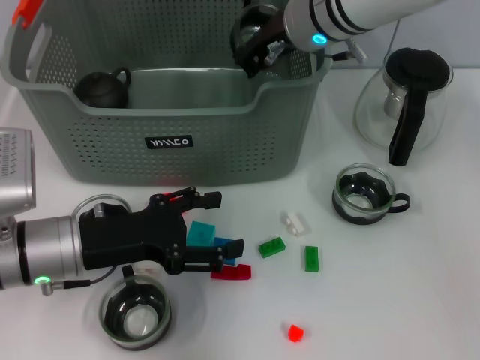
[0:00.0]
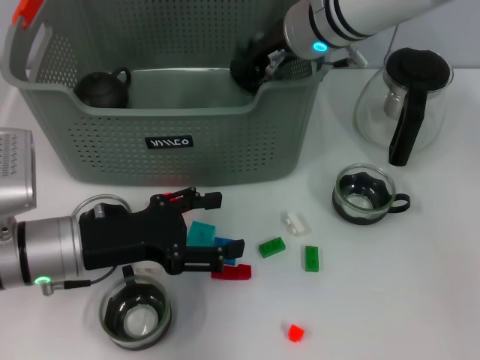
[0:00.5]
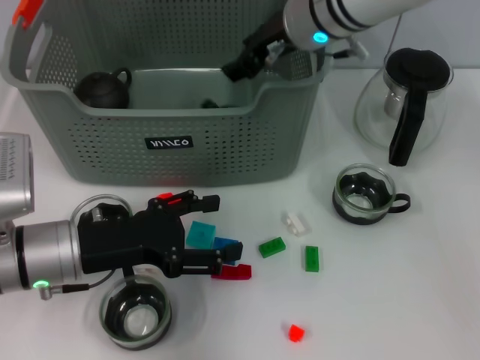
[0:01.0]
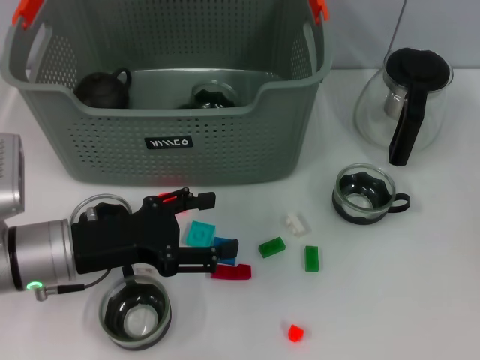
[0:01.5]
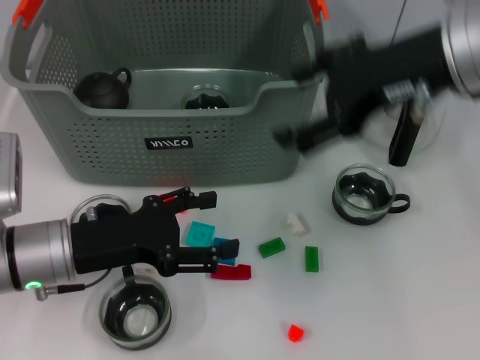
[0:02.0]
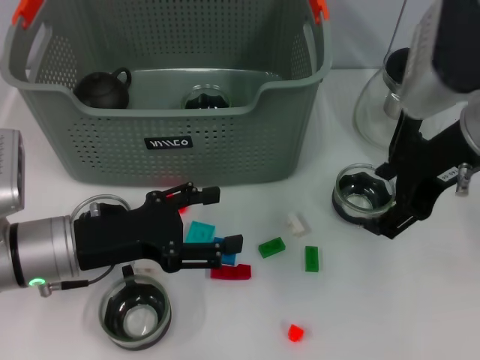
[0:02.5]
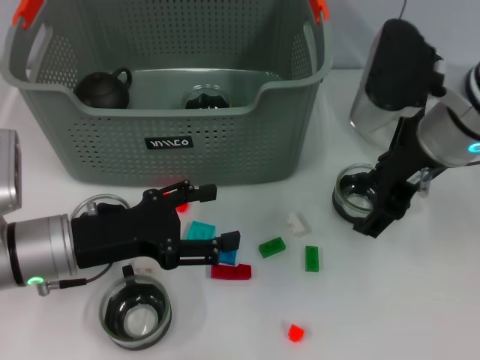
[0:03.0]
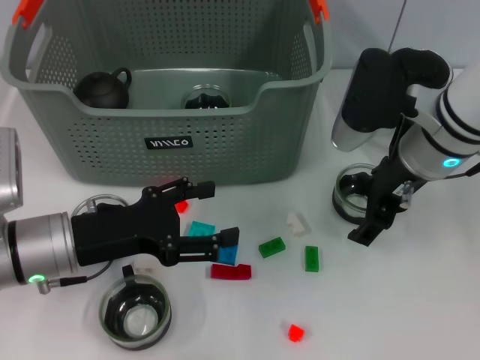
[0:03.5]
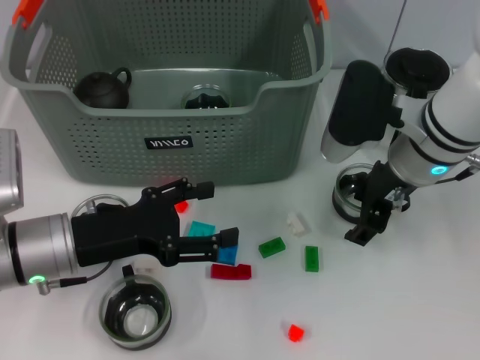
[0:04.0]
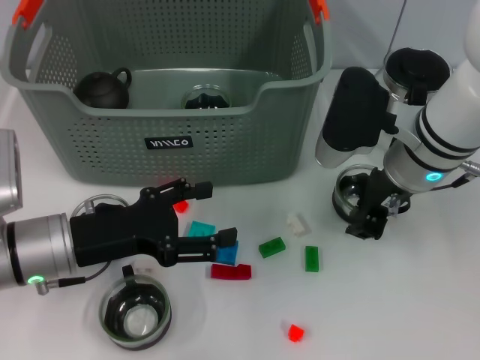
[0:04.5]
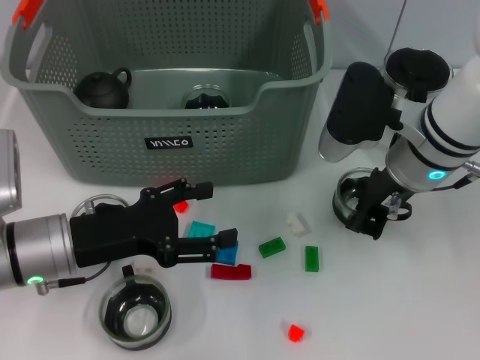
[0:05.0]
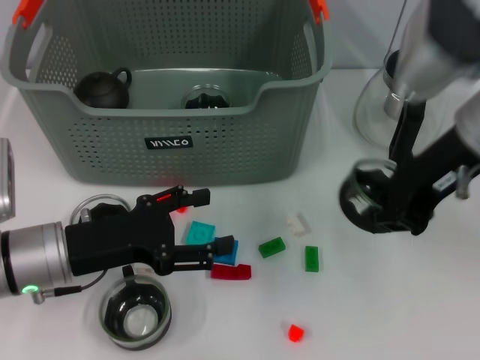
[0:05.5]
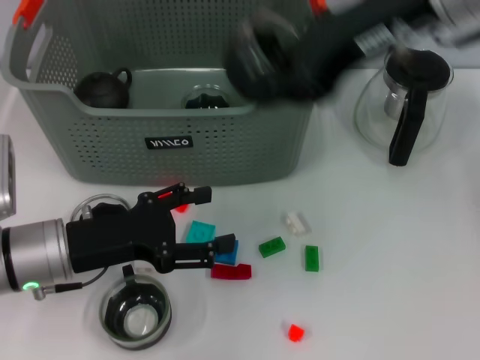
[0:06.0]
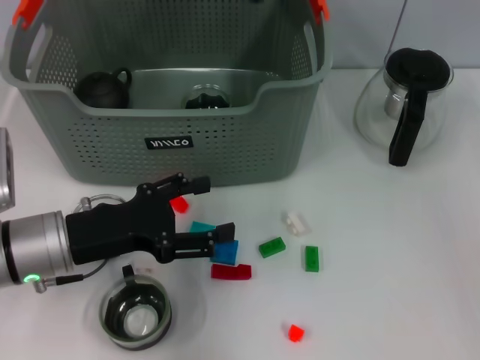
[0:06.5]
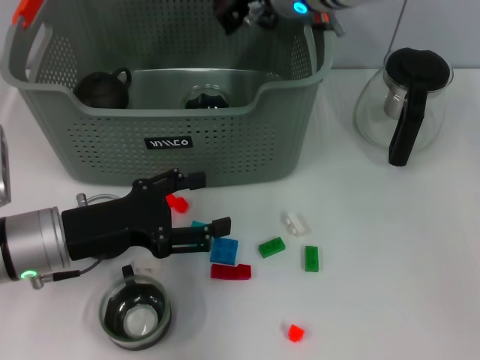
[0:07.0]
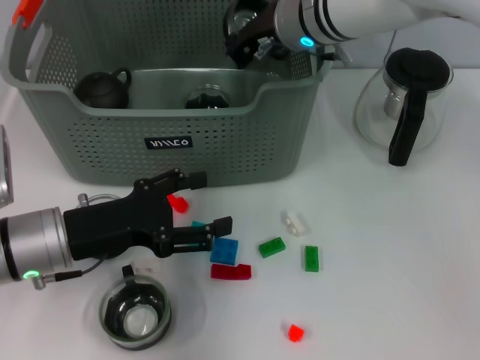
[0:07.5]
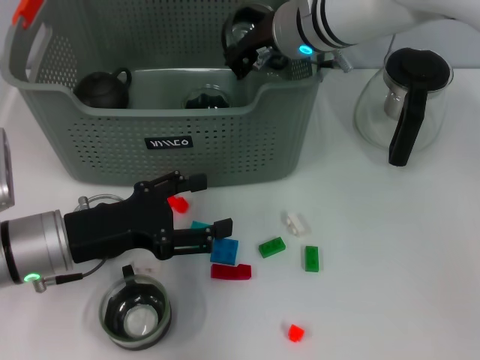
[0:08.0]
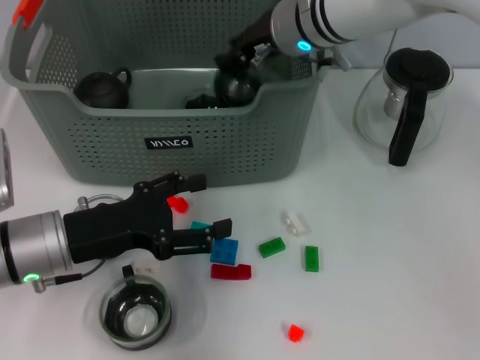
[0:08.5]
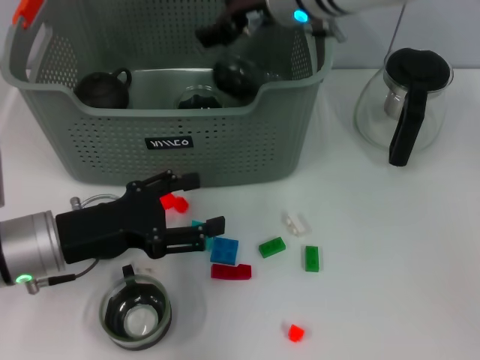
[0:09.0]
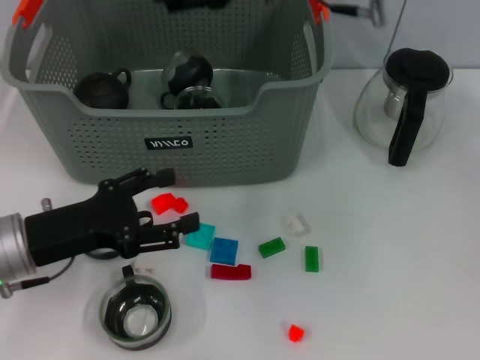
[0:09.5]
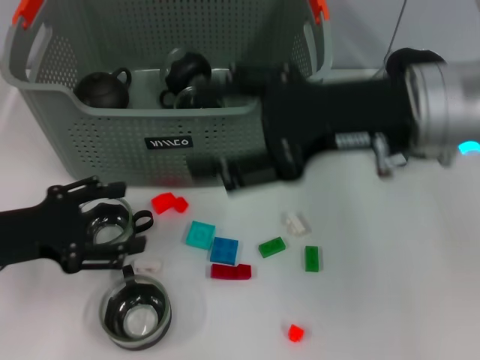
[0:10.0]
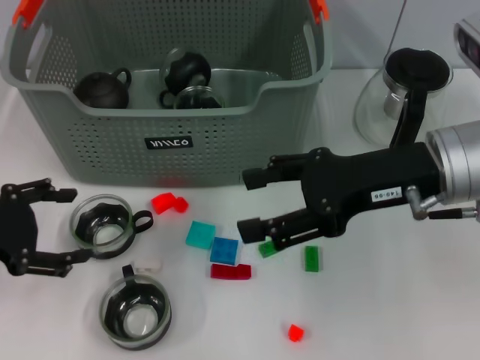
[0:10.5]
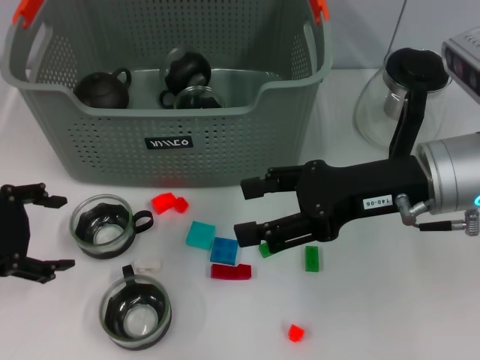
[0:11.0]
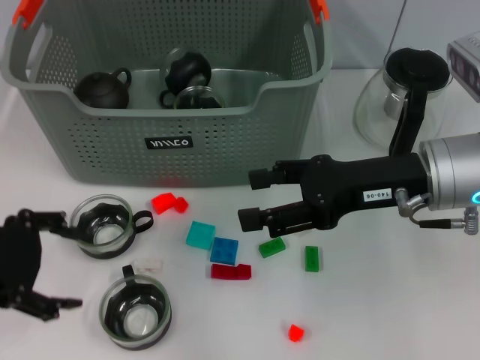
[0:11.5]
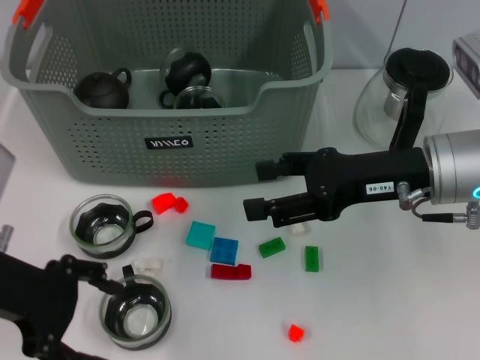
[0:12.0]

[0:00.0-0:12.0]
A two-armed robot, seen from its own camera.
Task of the whole recording: pick up the teacup on the table and place it into the storage bin, pick up the block on the table and place it into the storage bin.
Step, 1.5 to 5.0 s: Grasp the cup with right gripper.
Step, 5.5 to 9.0 s: Place the cup in the storage box with right gripper.
0.0 to 2.0 s: The right gripper heads backward, to the right and upward, covering some 15 cm, and opens.
2.0 to 4.0 s: The right gripper heads downward, covering approximately 15 cm.
4.0 to 6.0 s: The right gripper is displaced upward by some 20 cm, and closes up.
6.0 to 8.0 s: The right gripper shifts roughly 20 cm downward, forward and to the left.
8.0 to 10.0 s: The left gripper moves to the left, approximately 5 cm; the right gripper travels backward and to the right by roughly 15 cm, and opens up.
10.0 to 12.0 s: The right gripper moves downward, about 5 cm. Meanwhile the left gripper goes roughly 5 cm upward.

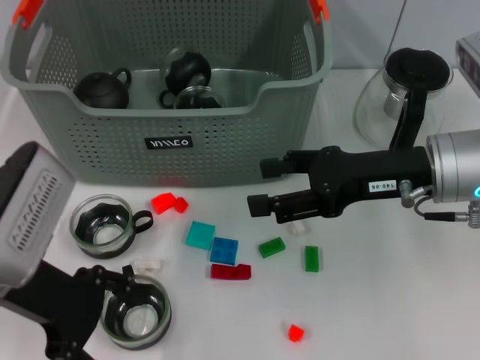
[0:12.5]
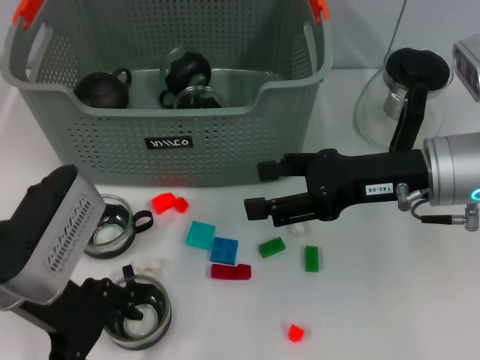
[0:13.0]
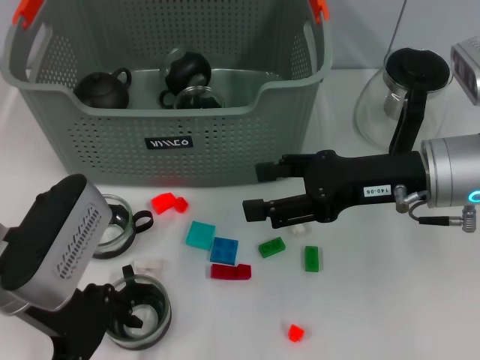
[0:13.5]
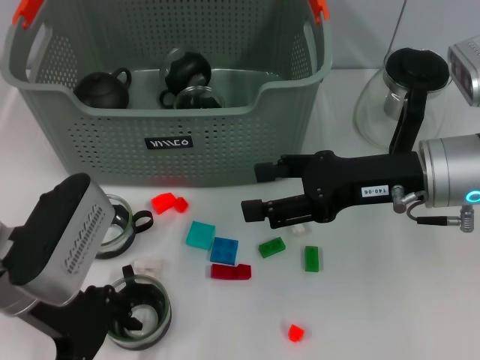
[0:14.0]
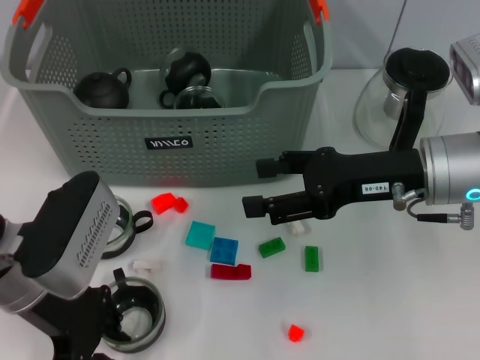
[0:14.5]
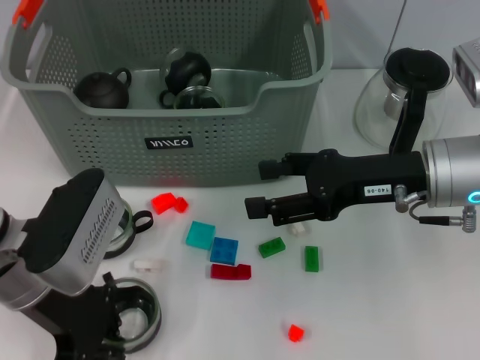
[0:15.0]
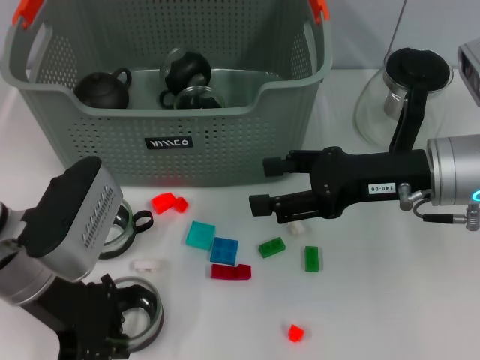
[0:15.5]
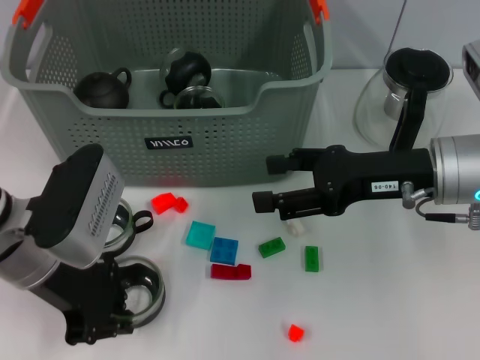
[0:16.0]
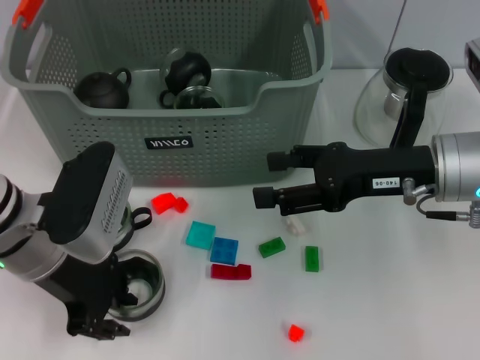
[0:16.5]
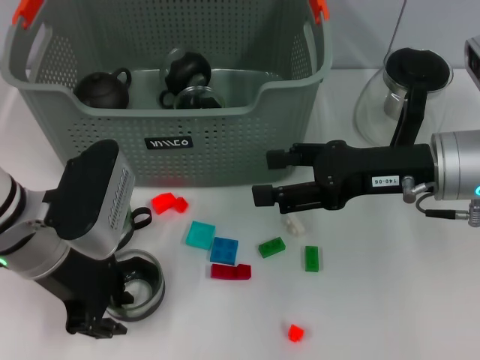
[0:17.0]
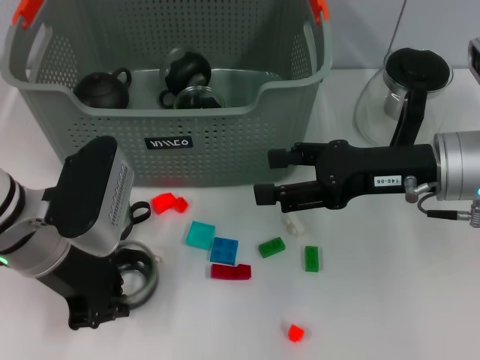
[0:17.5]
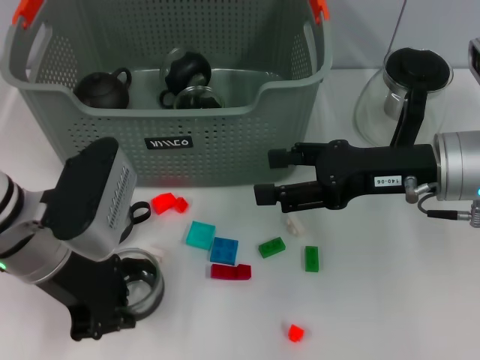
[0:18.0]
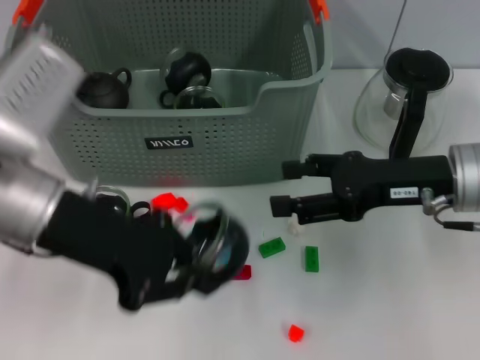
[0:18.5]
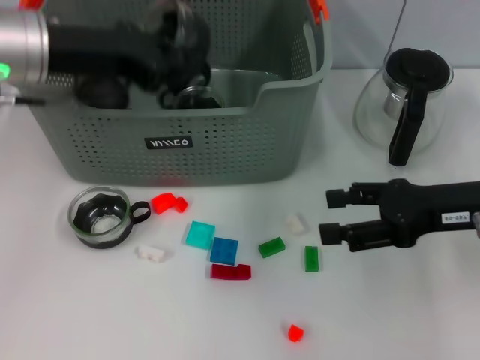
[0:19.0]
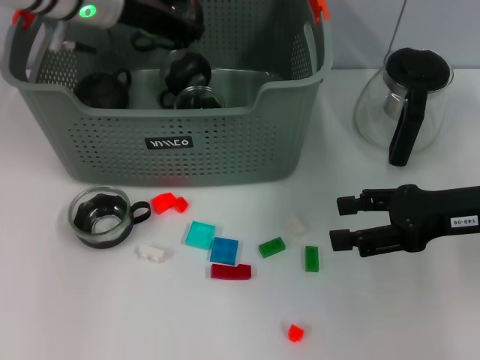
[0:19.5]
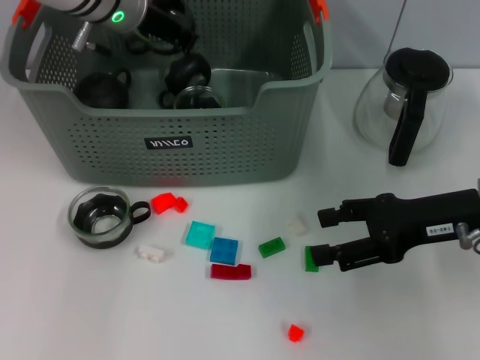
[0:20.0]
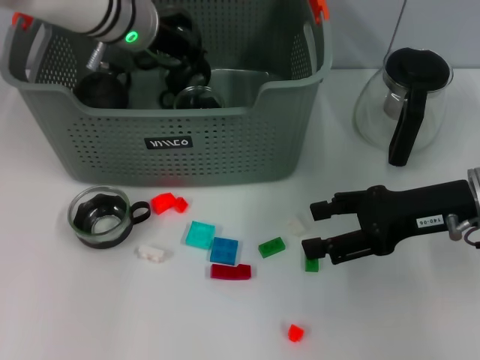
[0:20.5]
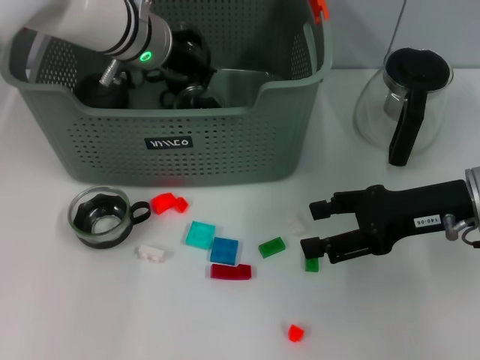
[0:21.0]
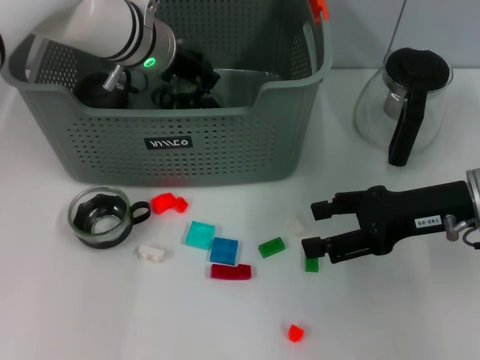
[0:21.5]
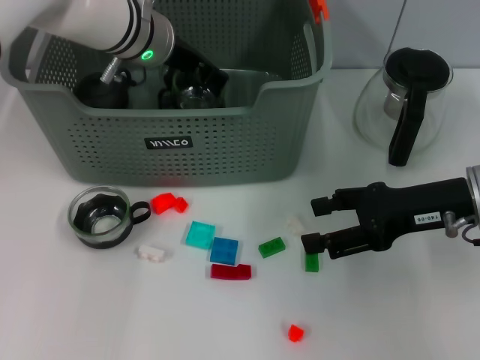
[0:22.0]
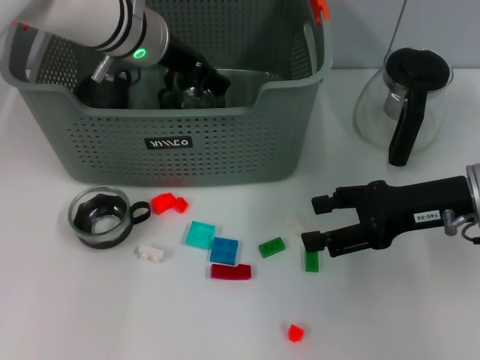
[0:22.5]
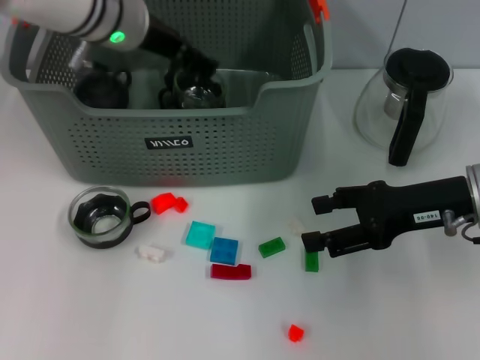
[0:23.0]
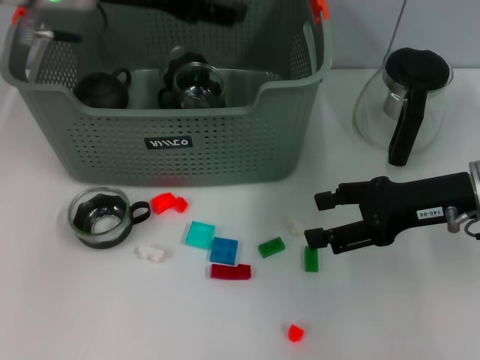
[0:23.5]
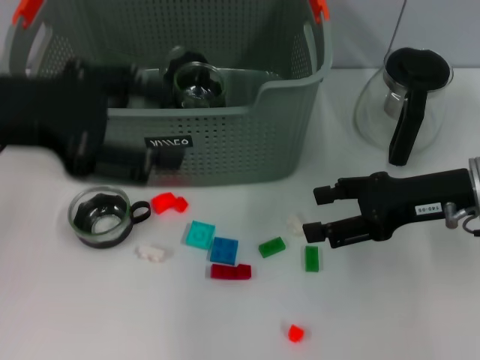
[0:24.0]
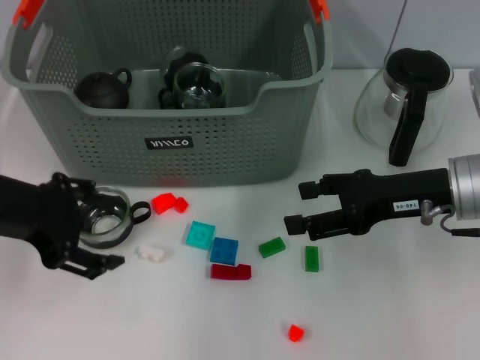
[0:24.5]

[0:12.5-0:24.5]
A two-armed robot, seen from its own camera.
Task of the whole recording: pick up the teacup on the table and place it into the storage bin, pick up the block on the table and place it into the storage bin.
Step, 12.5 to 14.5 s: Grasp the cup with left gripper.
Step, 15.5 to 23.5 s: Place the cup in the storage box with left gripper.
12.5 to 14.5 s: The left gripper closes its fingers.
14.5 to 16.5 s: The grippers make only small movements.
16.5 to 18.5 s: The left gripper is displaced upward by roughly 5 cm.
18.5 to 20.5 s: The left gripper travels forward by about 20 cm.
20.5 to 22.5 s: The left gripper opens its fingers.
22.5 to 24.5 s: The left gripper moves backward and to the left, approximately 20 cm.

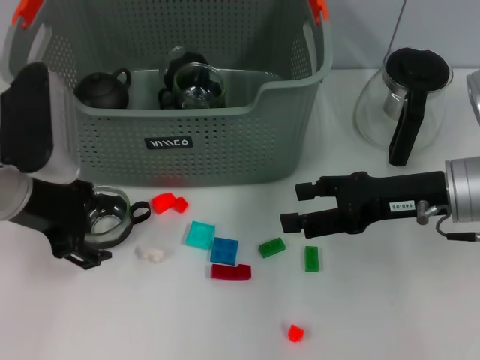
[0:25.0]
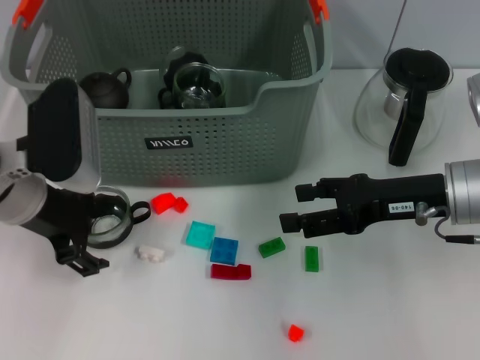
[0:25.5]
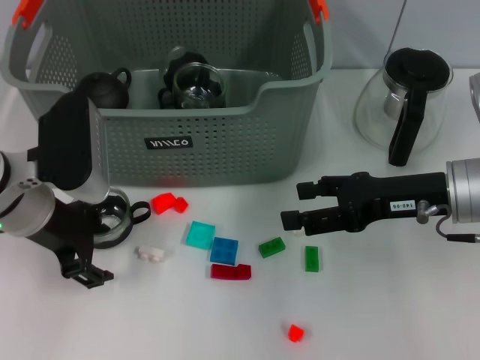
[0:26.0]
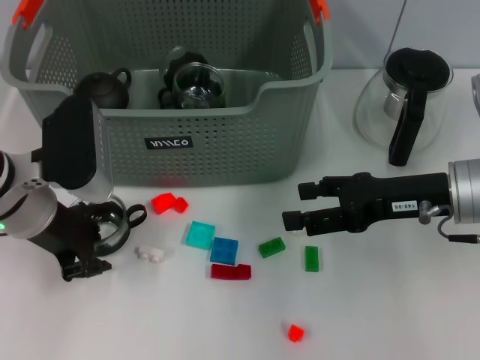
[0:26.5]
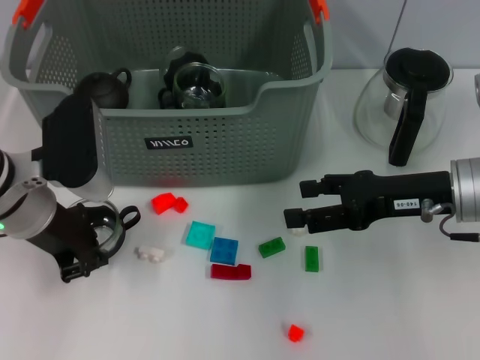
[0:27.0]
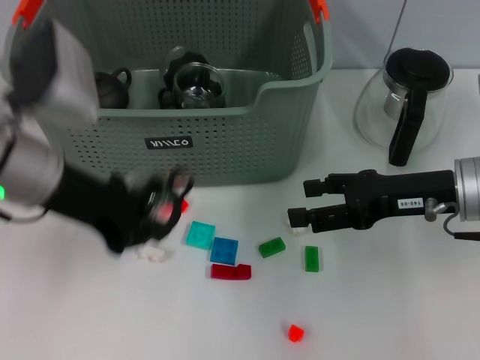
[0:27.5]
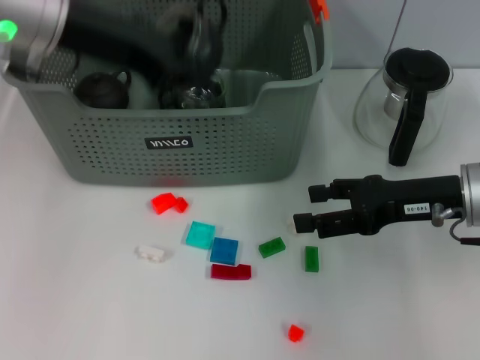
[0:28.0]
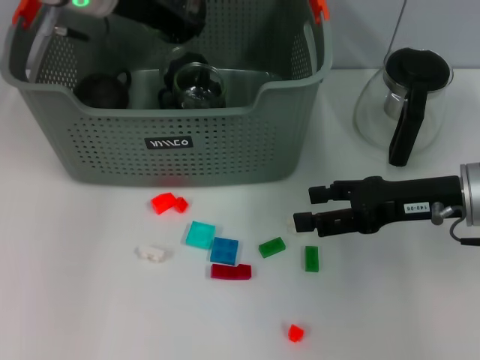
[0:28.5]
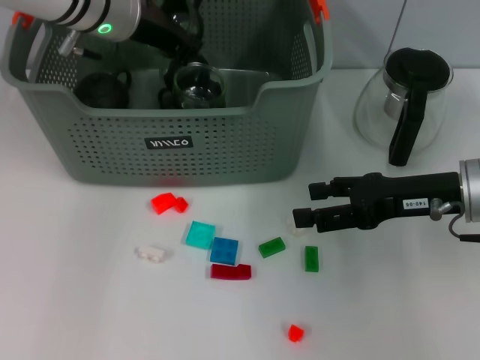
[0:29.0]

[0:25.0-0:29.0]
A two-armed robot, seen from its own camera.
Task of the whole recording: pick up the teacup on the table and place it into the storage bin, pick up the block on the table and place it into the storage bin.
Step, 25.0 to 26.5 s: Grasp the cup with left gripper.
25.0 to 27.0 s: The left gripper closes its fingers.
27.0 to 29.0 s: The left gripper heads forward, upward and to the right, covering roughly 15 cm.
